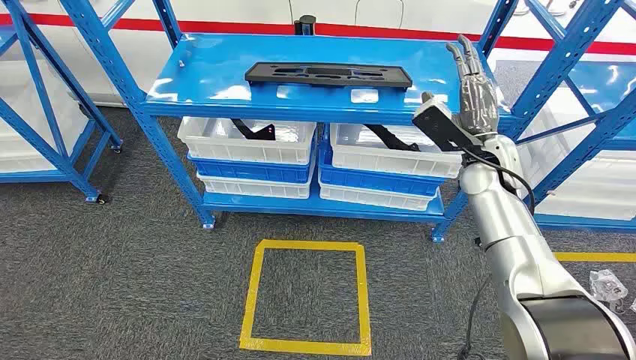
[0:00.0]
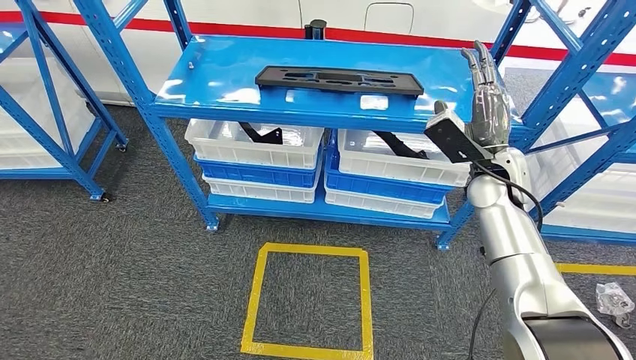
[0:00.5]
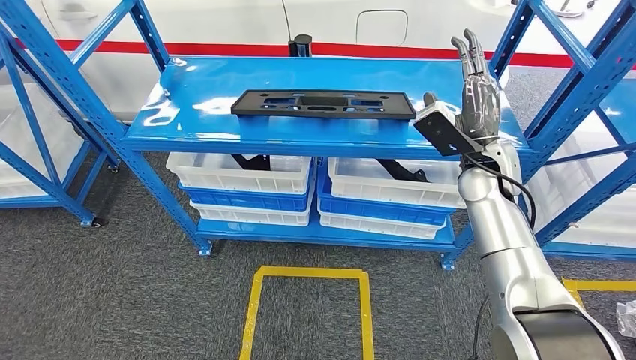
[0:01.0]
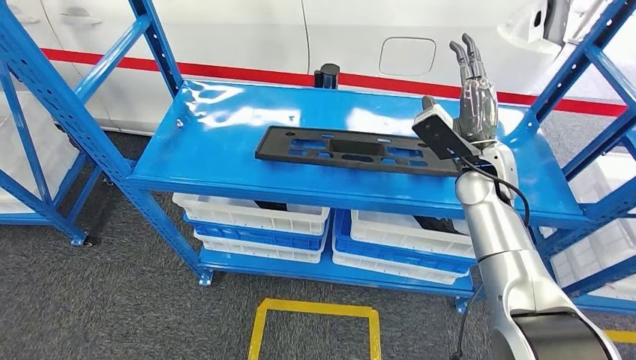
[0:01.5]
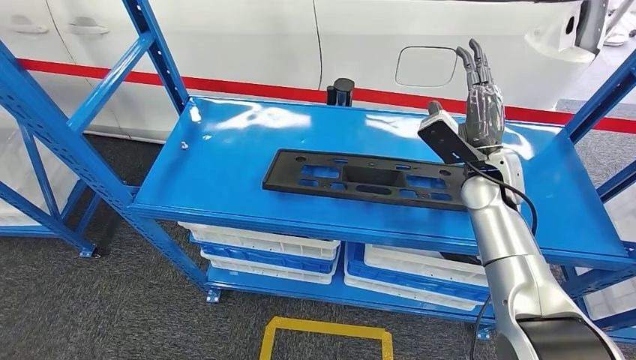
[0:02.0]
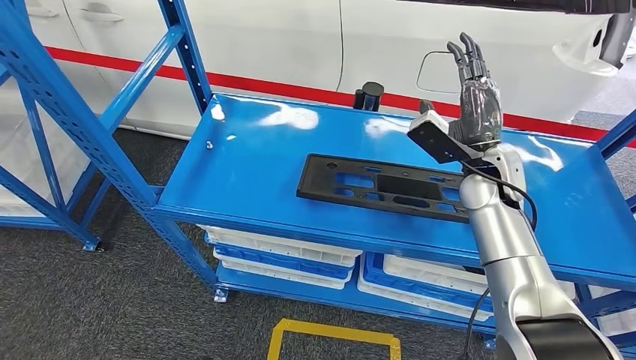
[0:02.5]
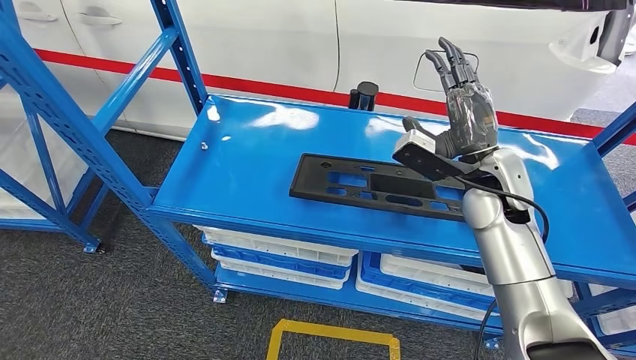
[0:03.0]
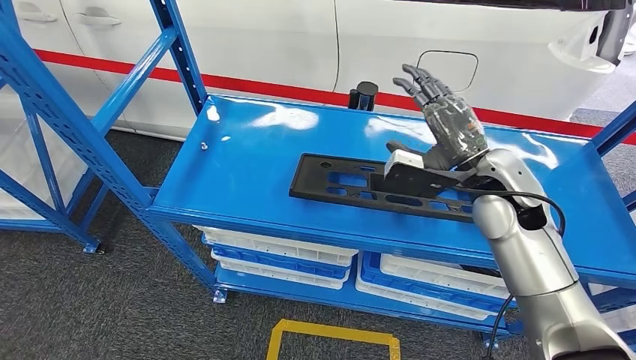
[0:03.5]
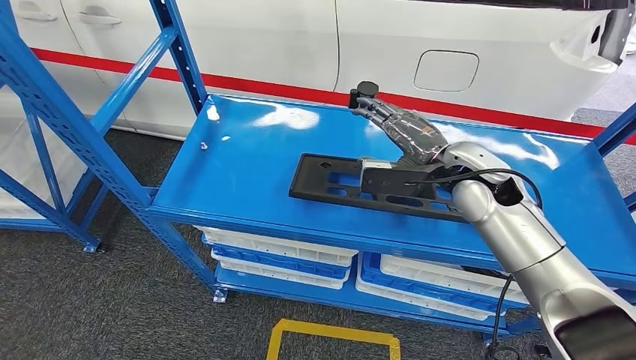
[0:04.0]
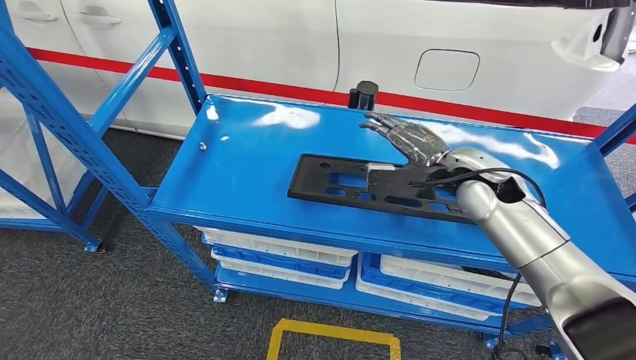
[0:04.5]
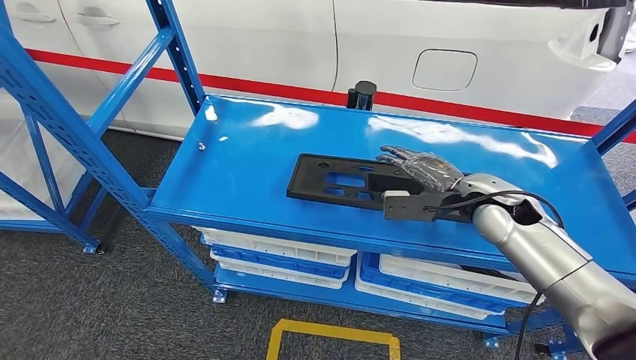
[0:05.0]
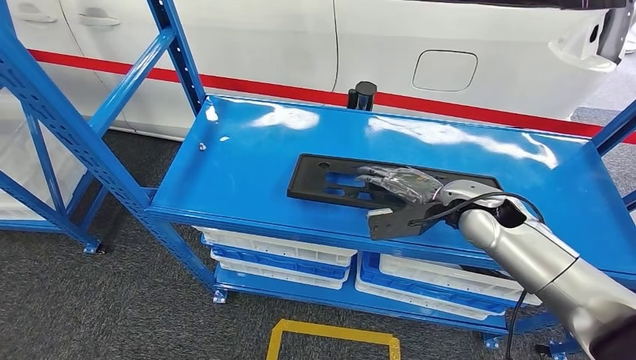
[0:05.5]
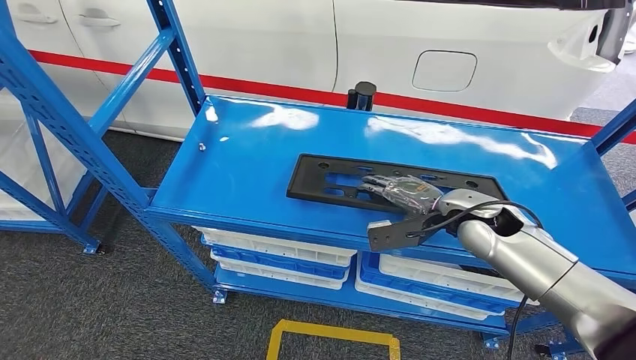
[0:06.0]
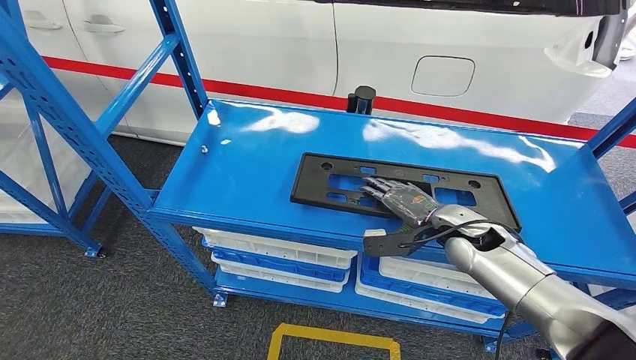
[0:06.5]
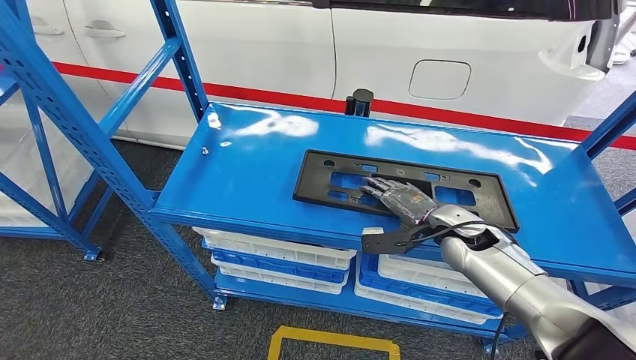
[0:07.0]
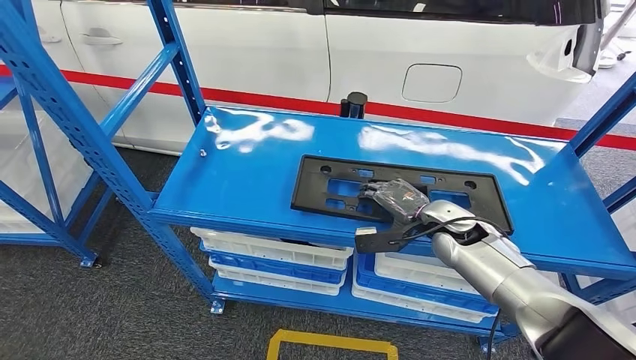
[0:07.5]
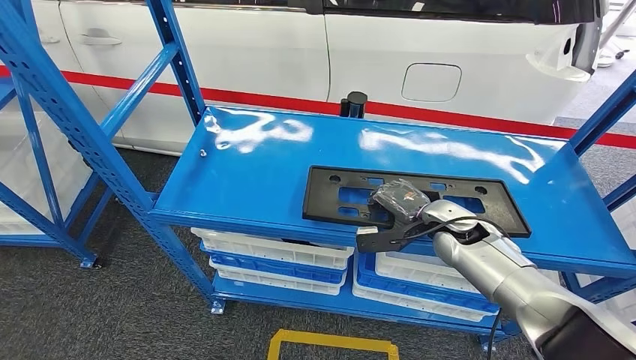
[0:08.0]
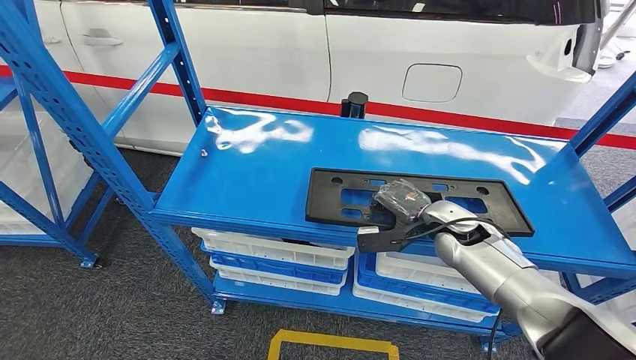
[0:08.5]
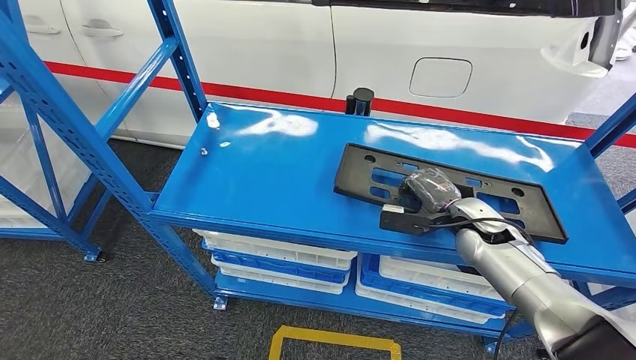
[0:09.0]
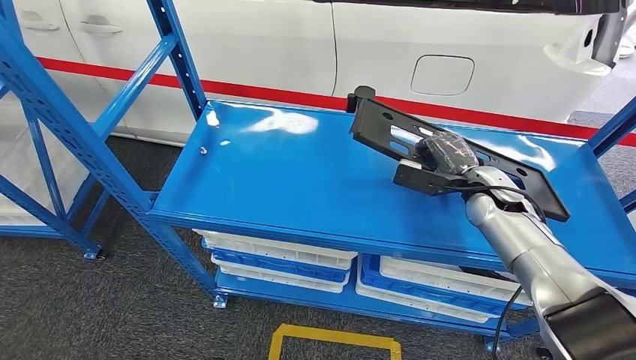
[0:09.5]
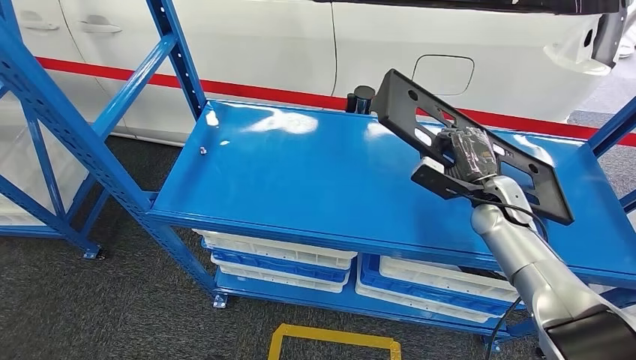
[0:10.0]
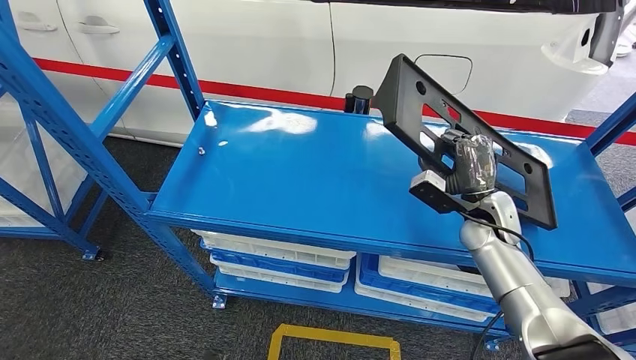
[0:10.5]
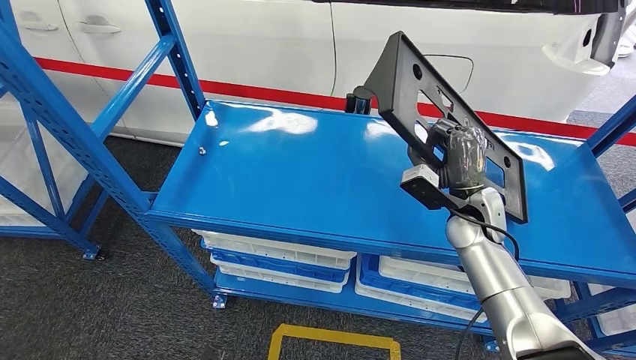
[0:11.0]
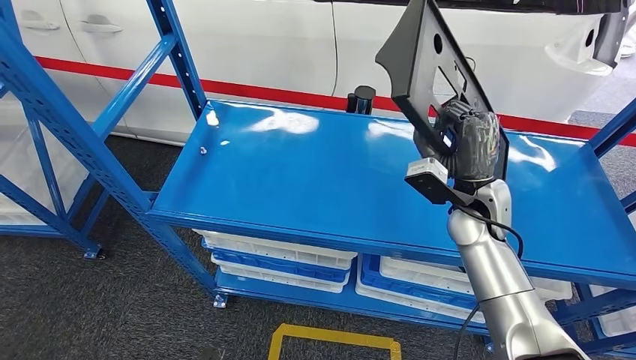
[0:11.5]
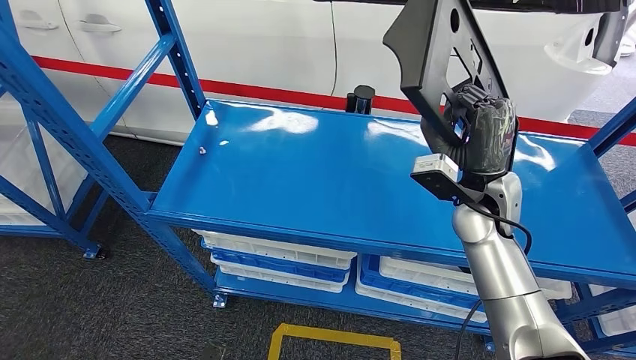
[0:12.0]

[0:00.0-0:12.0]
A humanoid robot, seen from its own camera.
0:04.0 to 0:06.0: The right hand is displaced downward by roughly 5 cm.
0:10.0 to 0:12.0: The right hand shifts about 10 cm to the left and upward.

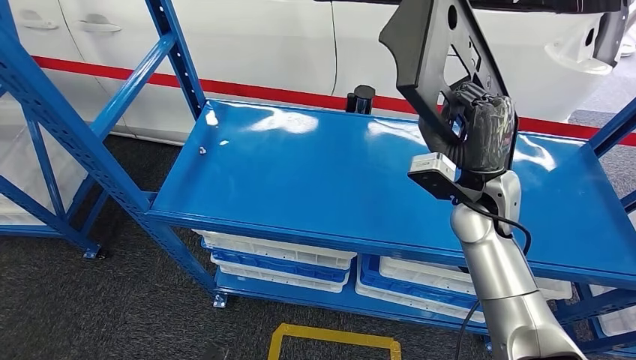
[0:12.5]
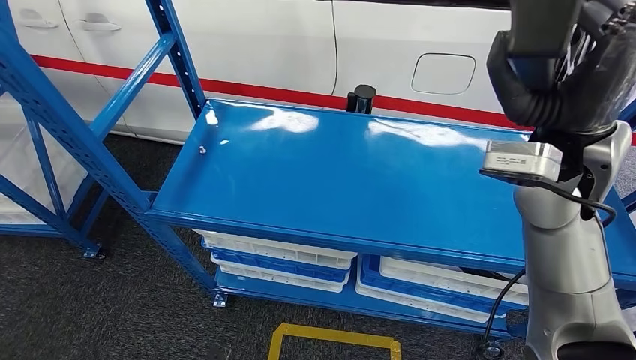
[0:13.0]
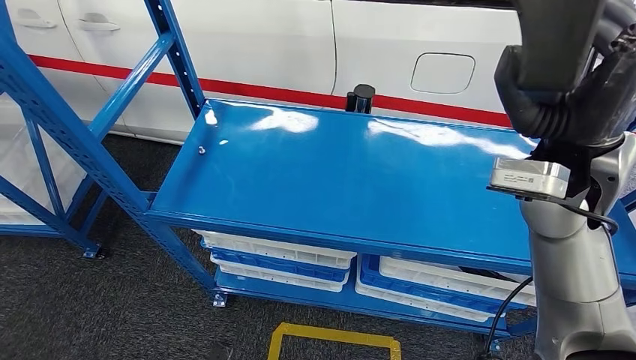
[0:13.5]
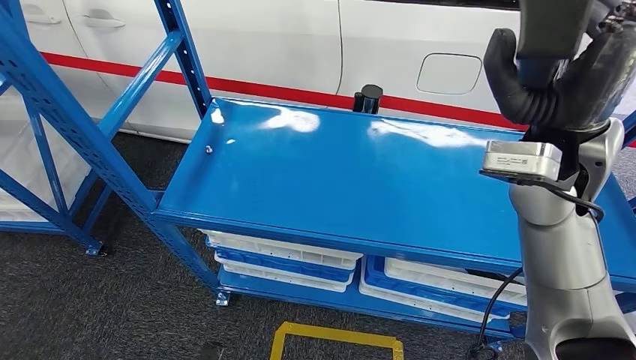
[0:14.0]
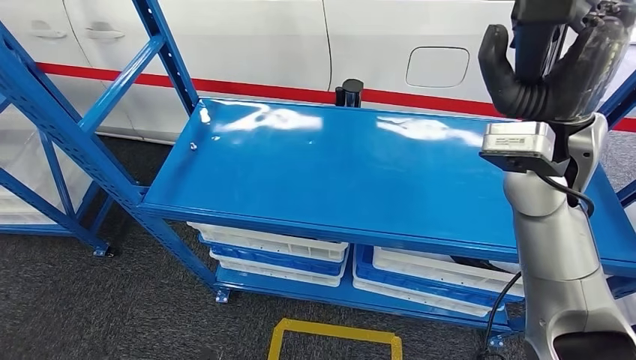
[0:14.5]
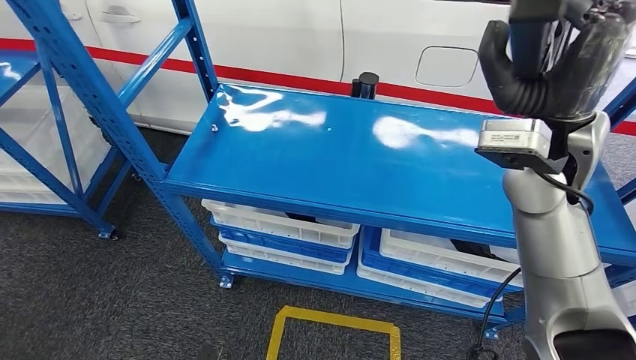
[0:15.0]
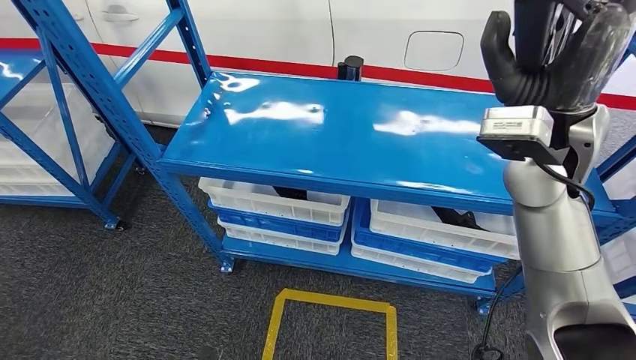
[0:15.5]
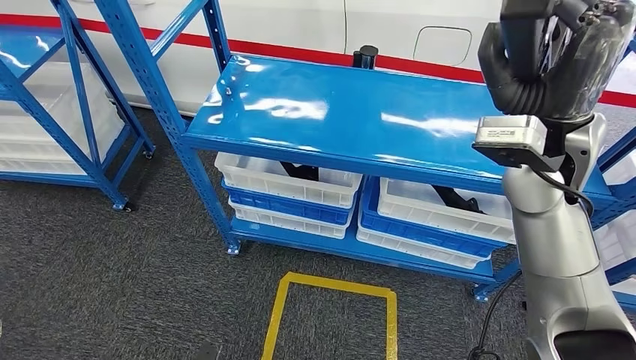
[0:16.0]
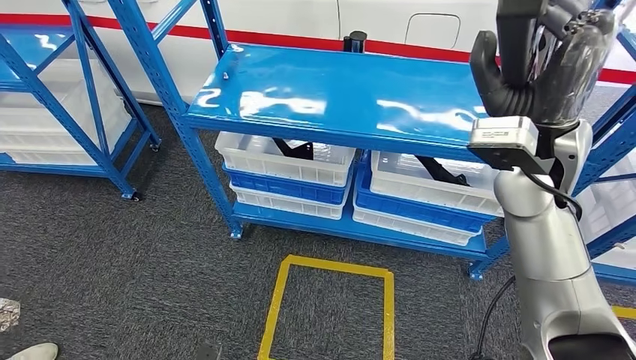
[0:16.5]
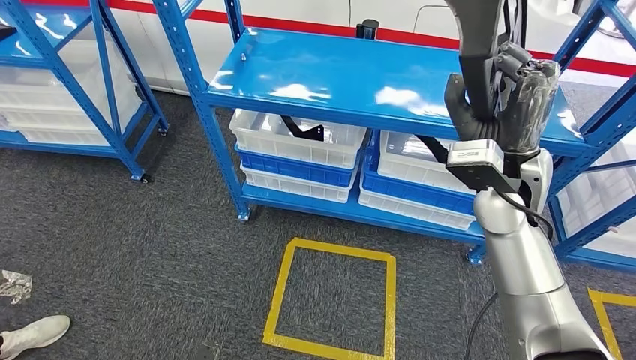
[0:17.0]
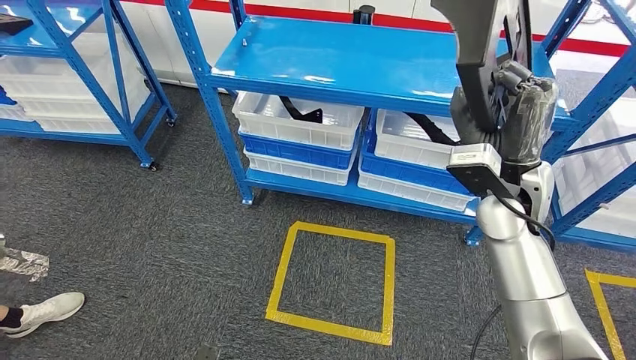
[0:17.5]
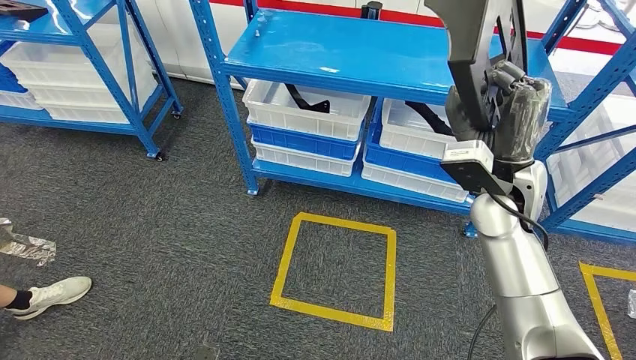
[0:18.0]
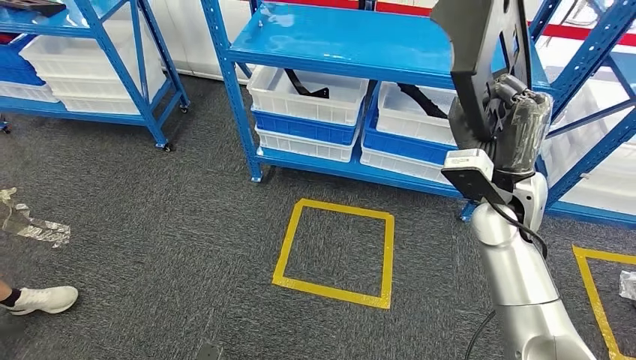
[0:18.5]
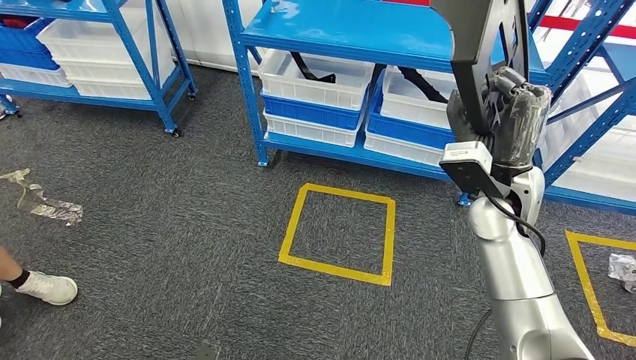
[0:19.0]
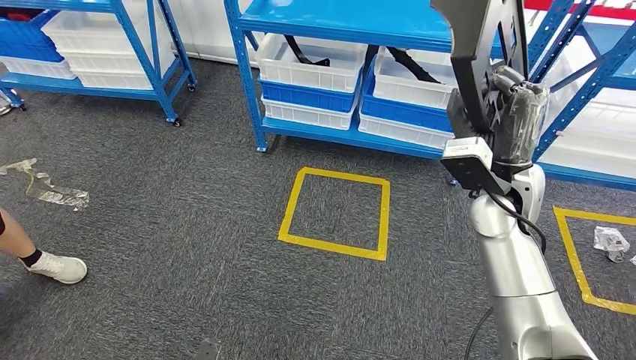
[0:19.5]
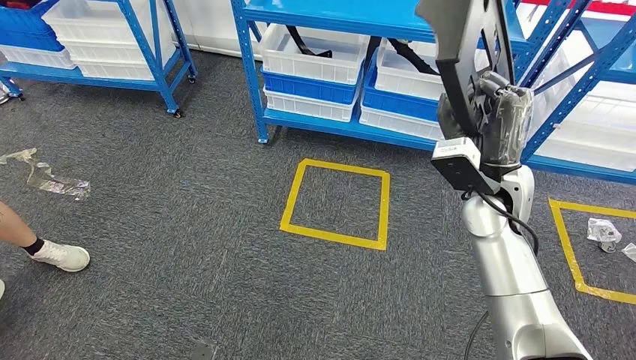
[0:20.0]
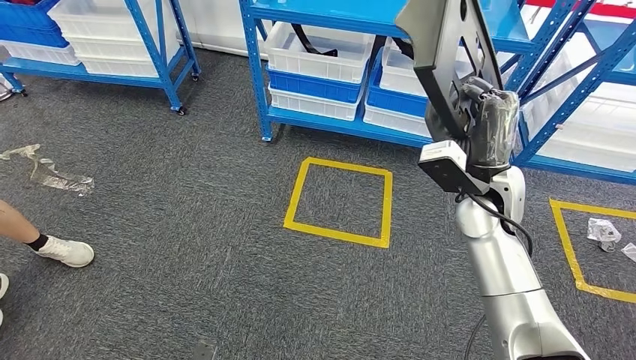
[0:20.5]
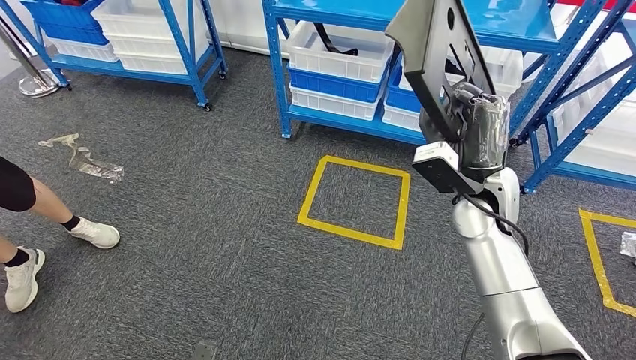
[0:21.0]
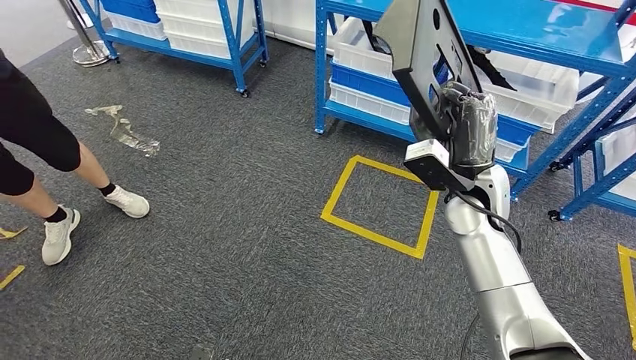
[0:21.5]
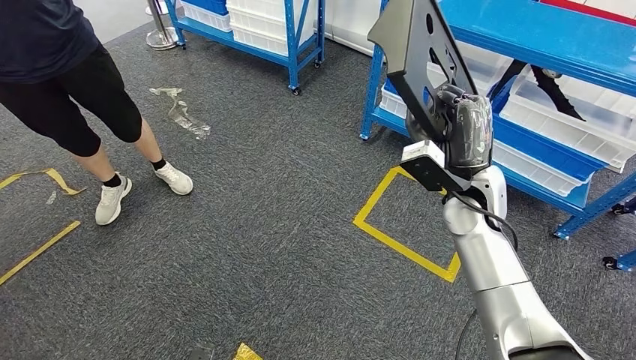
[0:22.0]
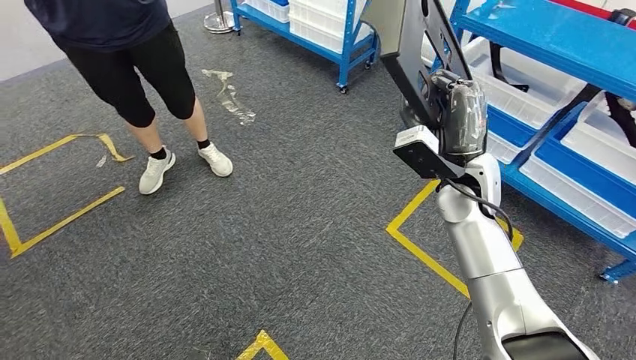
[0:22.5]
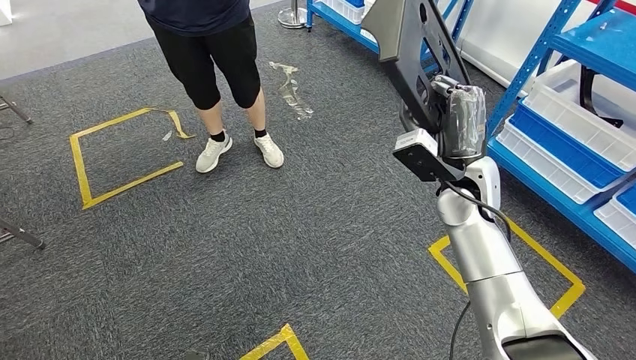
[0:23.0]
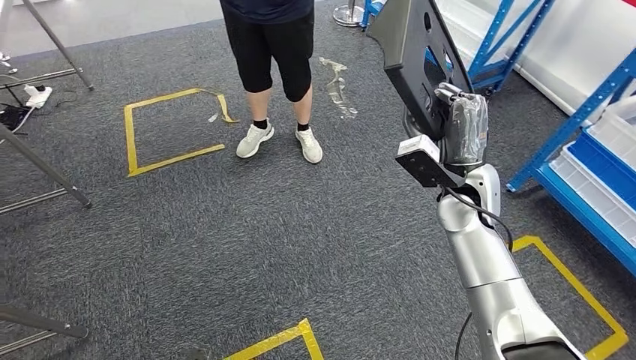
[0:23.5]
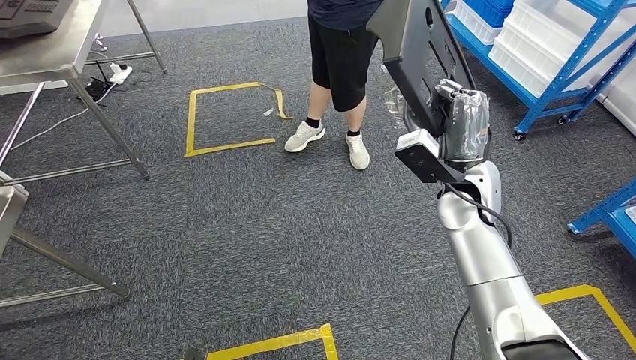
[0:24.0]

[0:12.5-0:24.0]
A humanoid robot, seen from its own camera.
Step, 0:12.5 to 0:14.5: Pick up the large material from the shelf.
